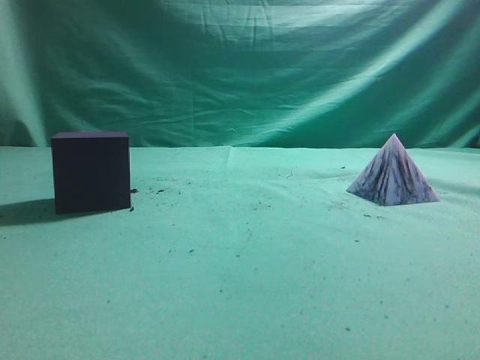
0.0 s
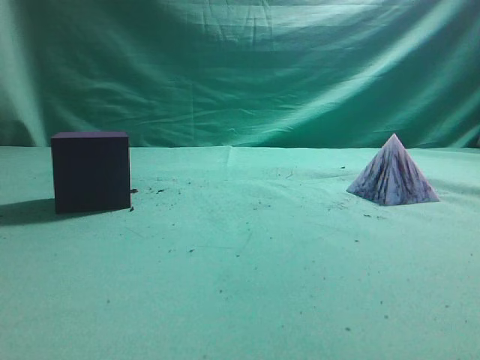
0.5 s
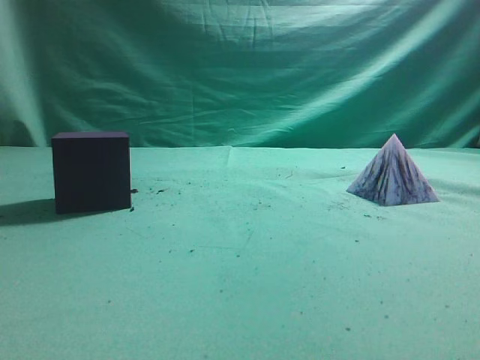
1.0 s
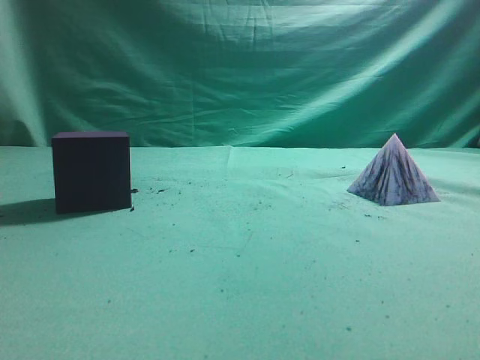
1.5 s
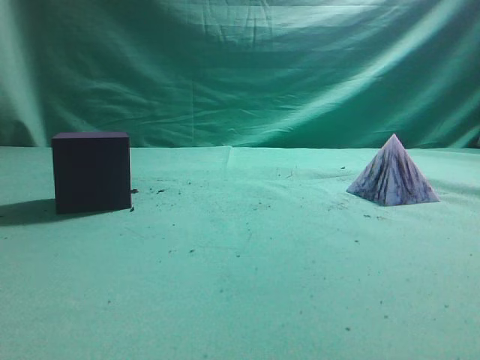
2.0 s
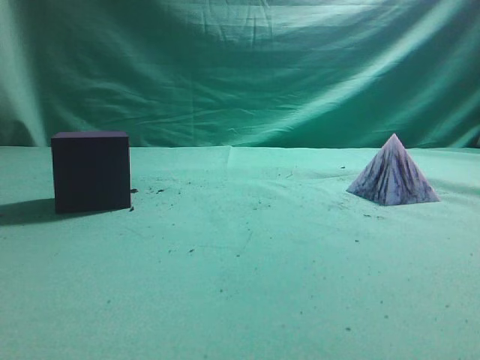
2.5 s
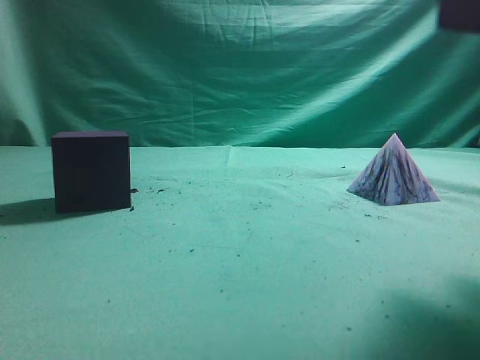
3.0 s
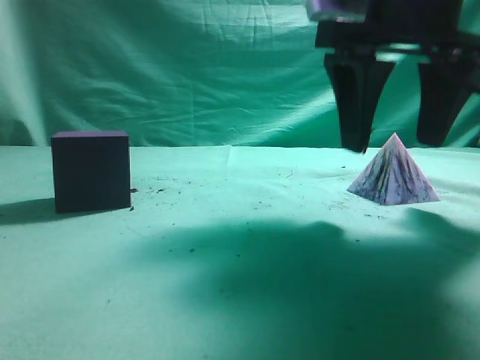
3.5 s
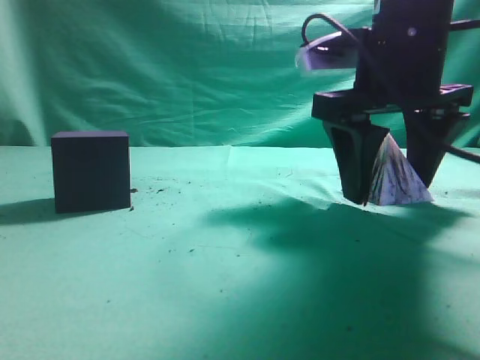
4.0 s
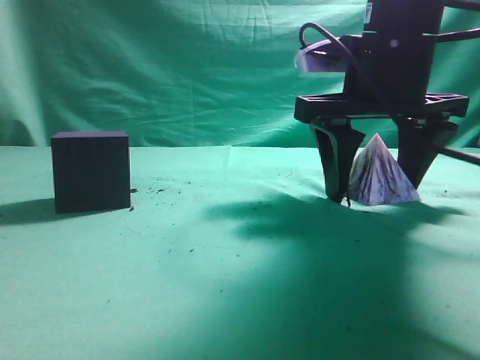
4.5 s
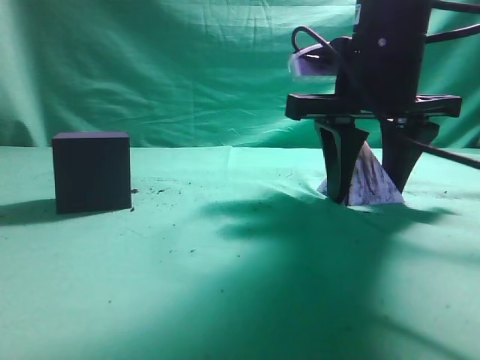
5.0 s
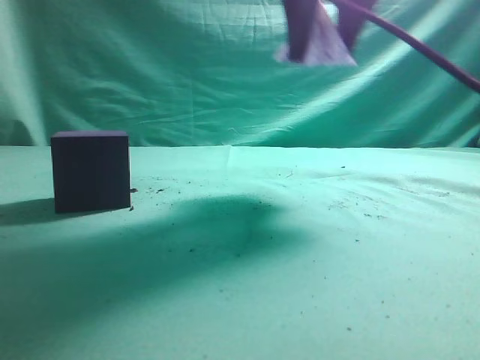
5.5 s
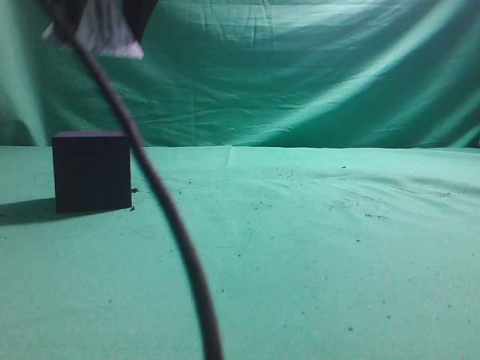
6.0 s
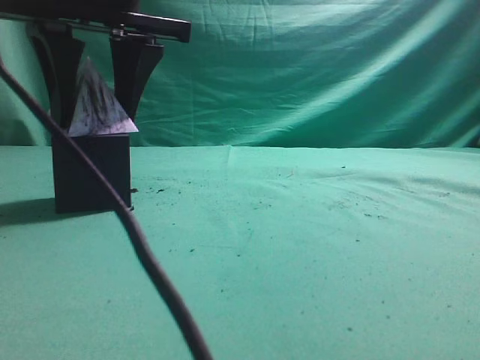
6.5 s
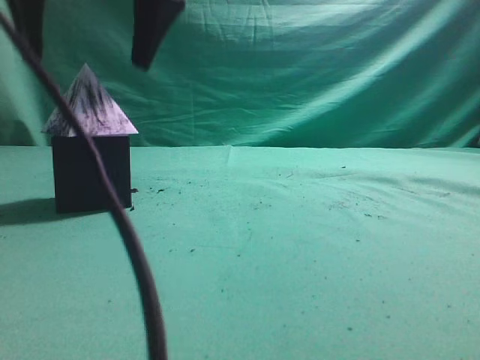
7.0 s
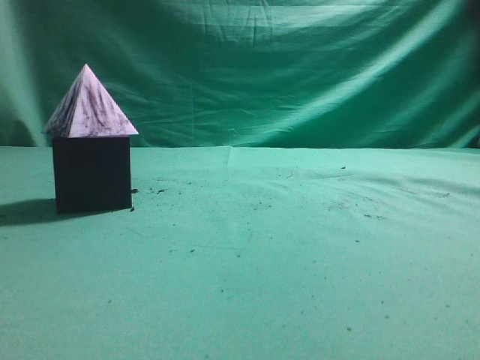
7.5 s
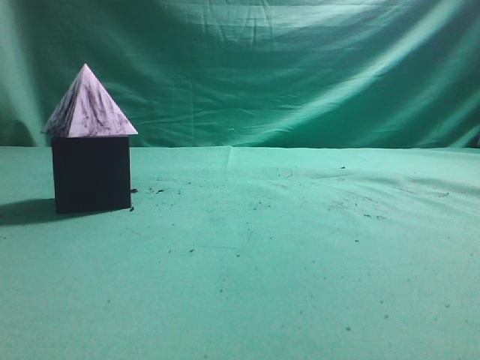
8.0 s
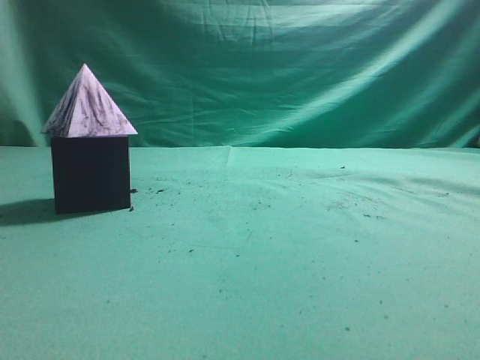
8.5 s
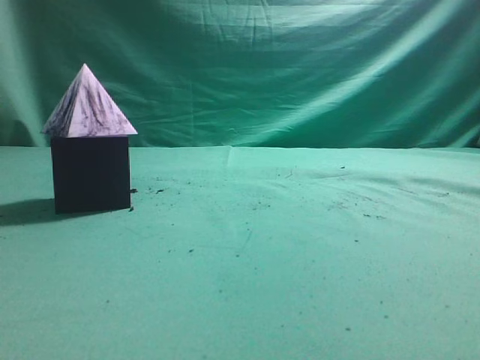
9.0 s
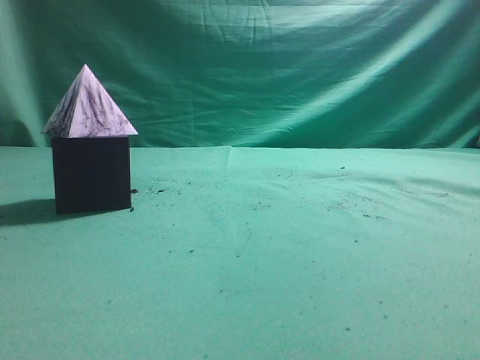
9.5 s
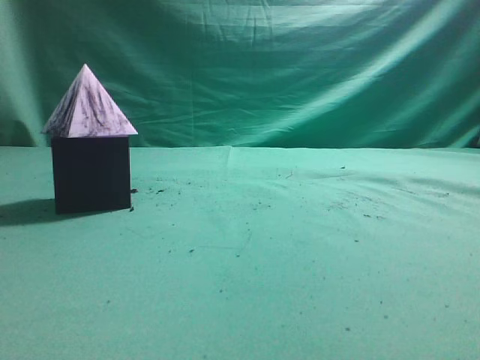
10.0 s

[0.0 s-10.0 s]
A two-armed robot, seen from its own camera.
Task of the whole recording: pick up the square pyramid from the table and place it on the cube block.
Step, 0.0 to 5.0 s: Grasp the triangular block.
Step, 5.5 to 6.5 s: Place the block onto the cube-shaped block.
2.0 to 4.0 s: The right gripper heads forward, to the left and downward, covering approximately 30 cm, and opens its fingers.
4.0 to 6.0 s: The right gripper moves to the left and upward, approximately 25 cm.
6.0 to 8.0 s: The right gripper shifts about 25 cm to the right, backward and upward, and closes its fingers.
